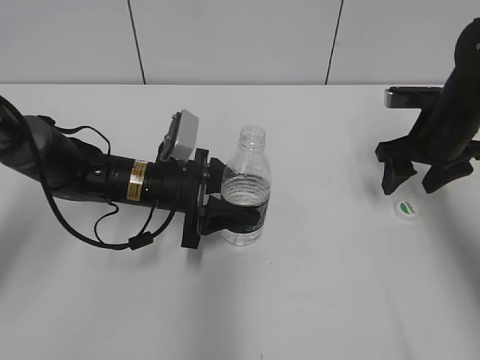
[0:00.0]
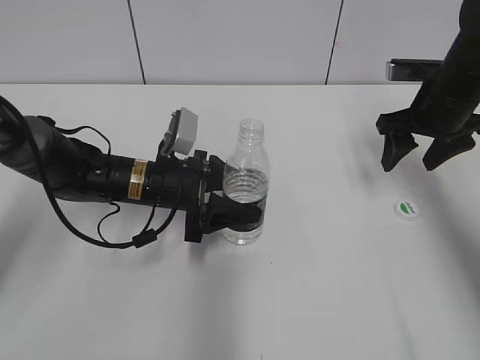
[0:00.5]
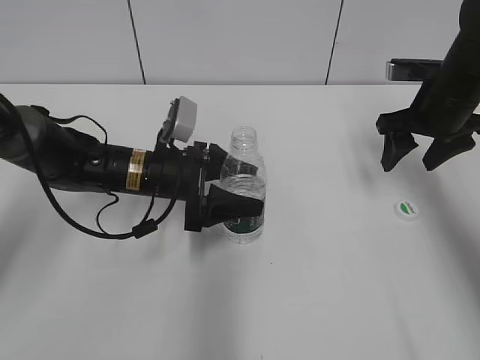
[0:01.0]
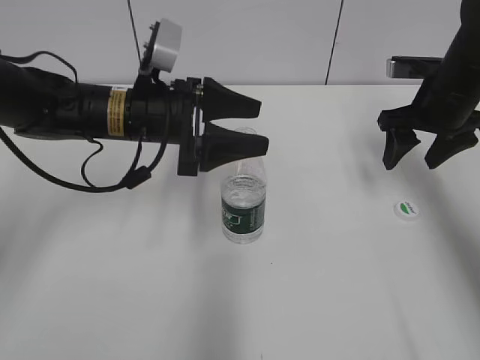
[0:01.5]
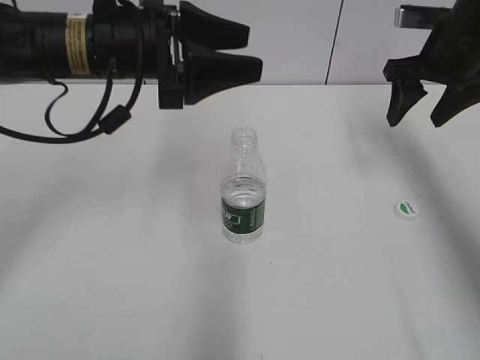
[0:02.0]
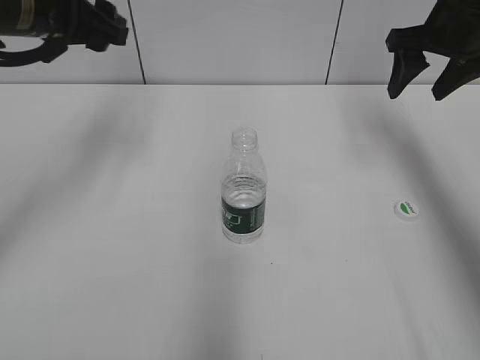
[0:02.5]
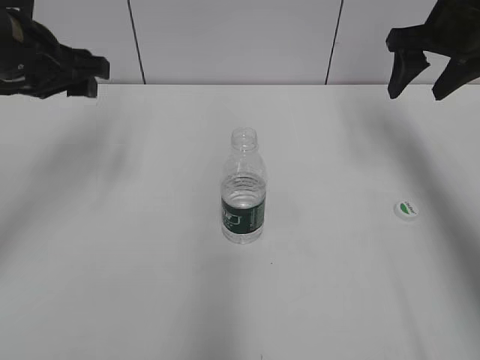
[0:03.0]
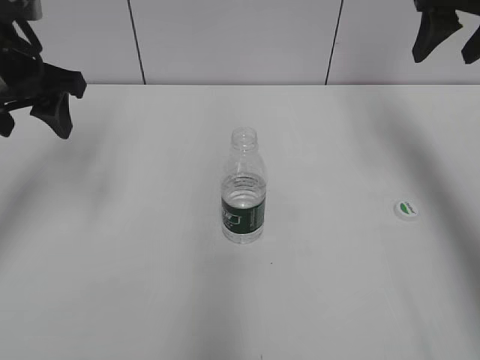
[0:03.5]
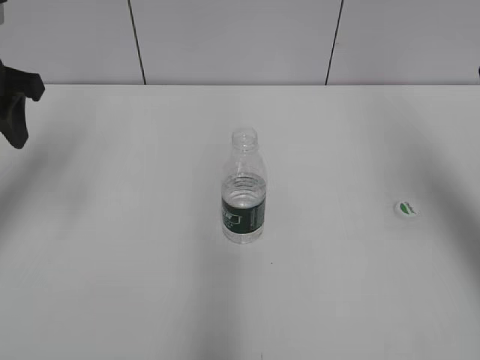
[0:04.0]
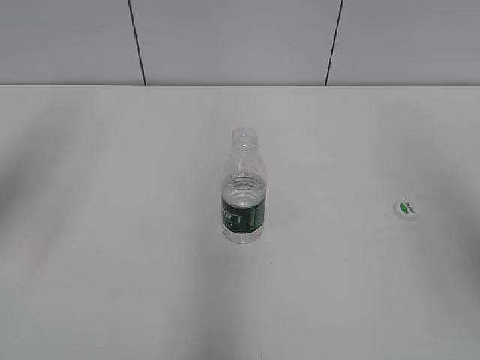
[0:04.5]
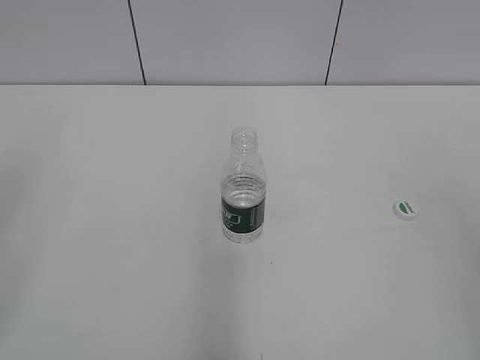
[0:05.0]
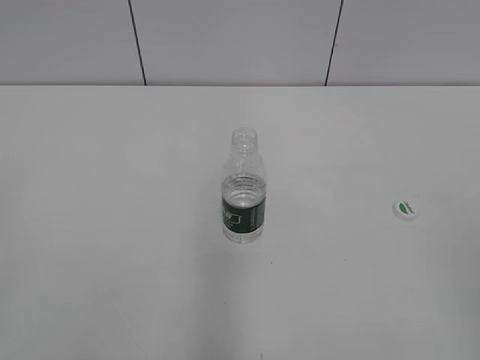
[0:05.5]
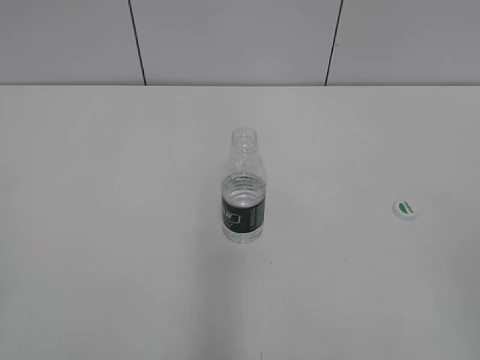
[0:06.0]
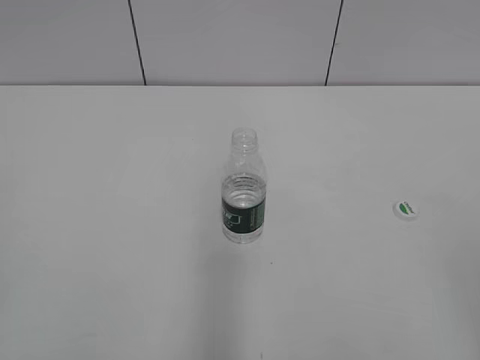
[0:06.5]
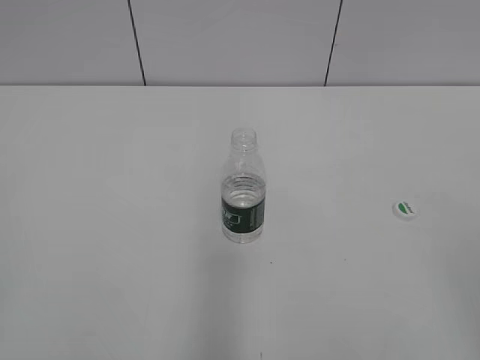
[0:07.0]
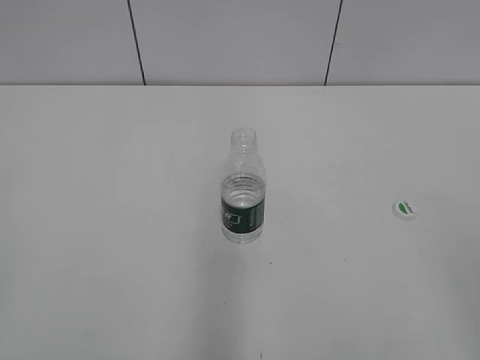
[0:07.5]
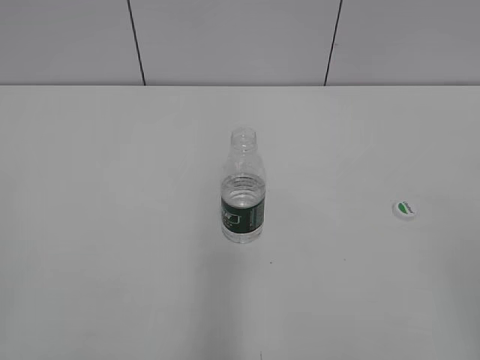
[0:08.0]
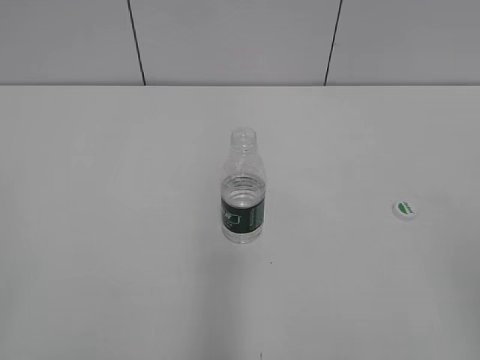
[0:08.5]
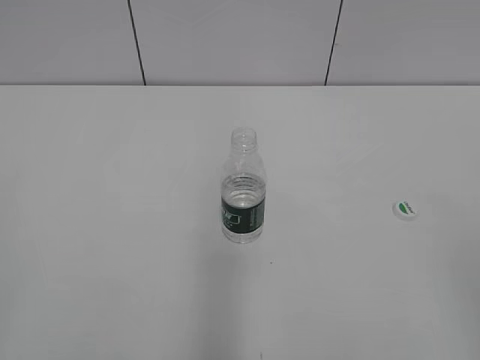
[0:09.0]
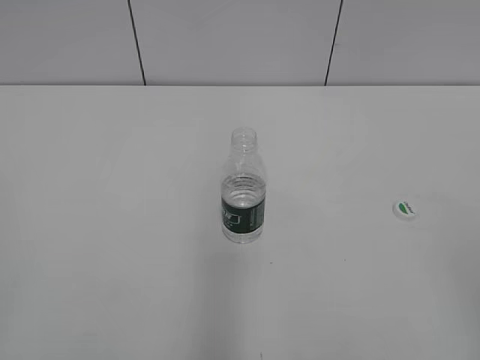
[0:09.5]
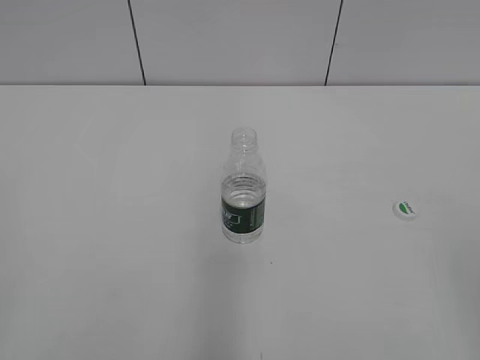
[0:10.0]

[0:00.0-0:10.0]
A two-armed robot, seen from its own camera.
Step, 0:00.0 to 0:02.0: Place the bottle on the table with the left gripper.
0:00.0 to 0:02.0: The left gripper heads upward, covering about 20 cm; the right gripper heads upward, covering roughly 10 cm.
0:02.0 to 0:04.0: The left gripper travels to the left by roughly 15 cm. The right gripper moves backward and upward, approximately 20 cm.
0:04.0 to 0:06.0: The two grippers go about 30 cm backward. The left gripper closes its fingers.
